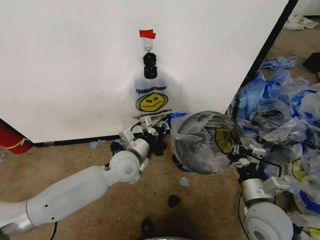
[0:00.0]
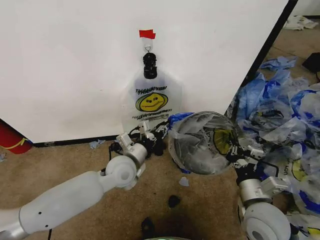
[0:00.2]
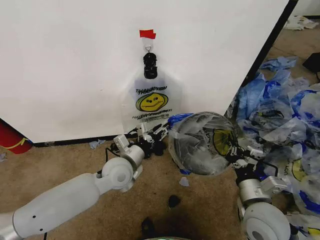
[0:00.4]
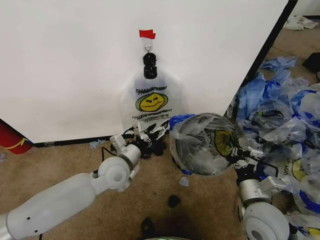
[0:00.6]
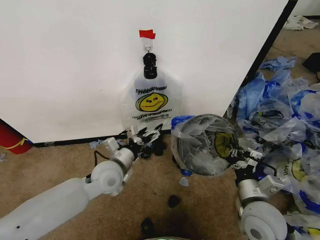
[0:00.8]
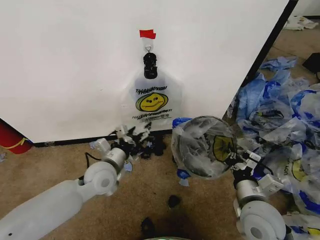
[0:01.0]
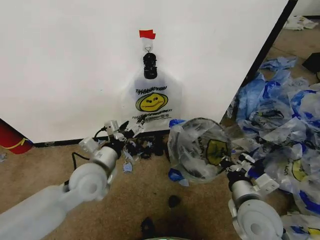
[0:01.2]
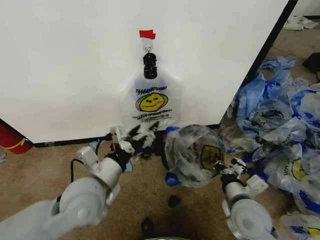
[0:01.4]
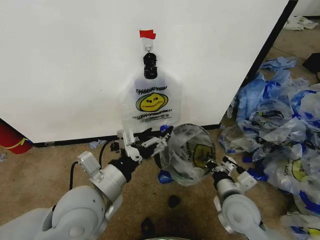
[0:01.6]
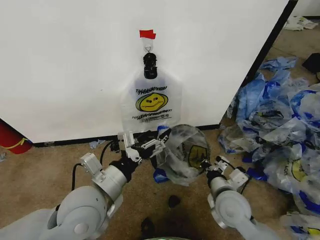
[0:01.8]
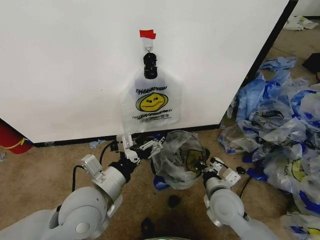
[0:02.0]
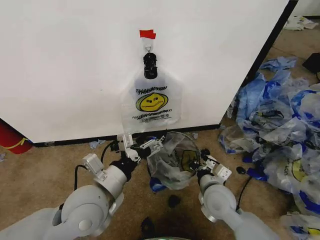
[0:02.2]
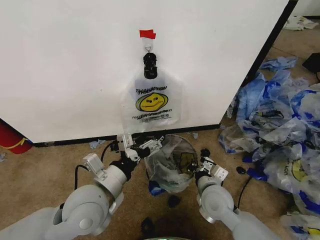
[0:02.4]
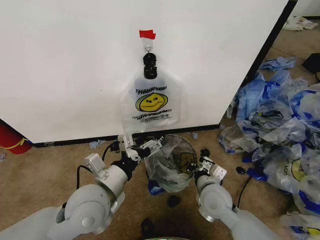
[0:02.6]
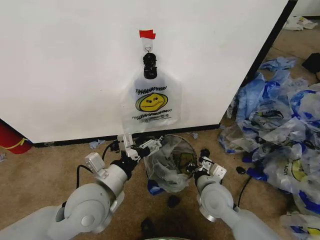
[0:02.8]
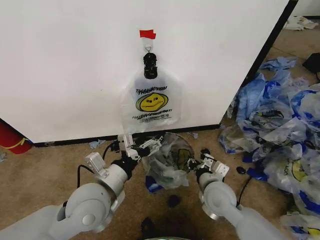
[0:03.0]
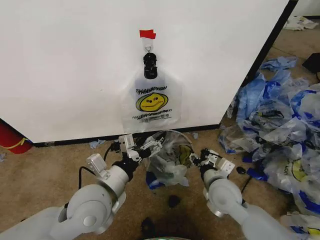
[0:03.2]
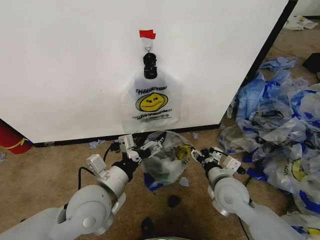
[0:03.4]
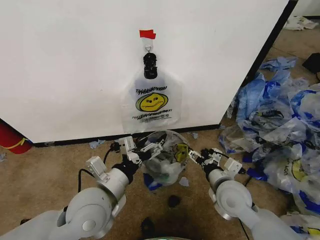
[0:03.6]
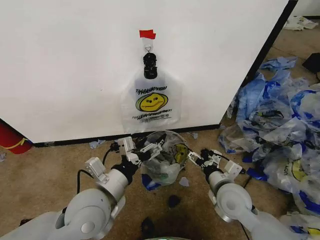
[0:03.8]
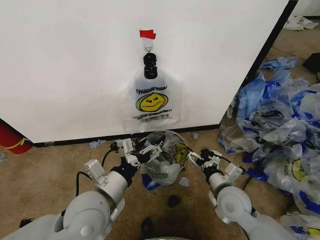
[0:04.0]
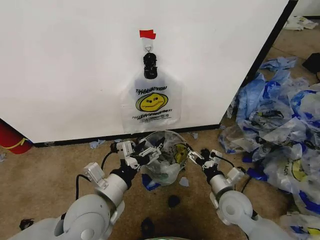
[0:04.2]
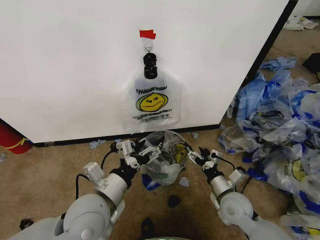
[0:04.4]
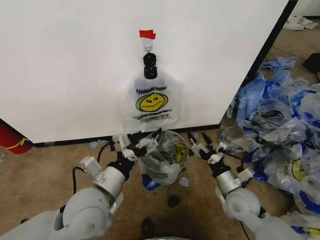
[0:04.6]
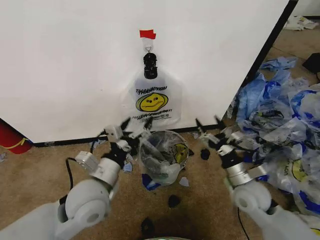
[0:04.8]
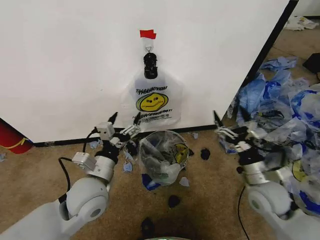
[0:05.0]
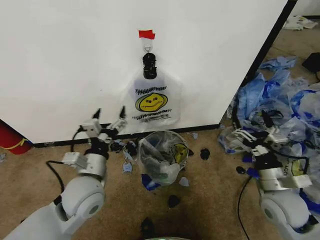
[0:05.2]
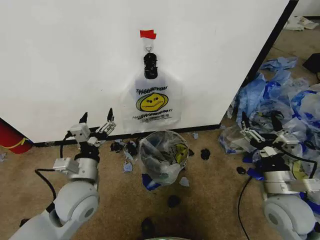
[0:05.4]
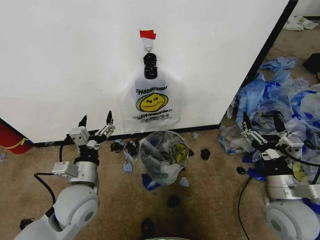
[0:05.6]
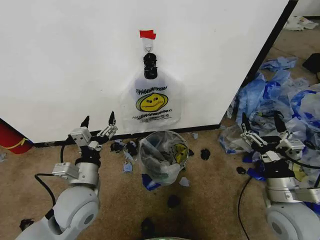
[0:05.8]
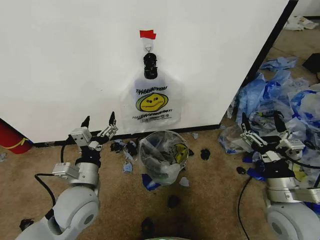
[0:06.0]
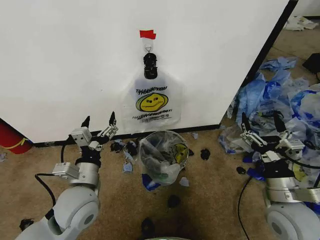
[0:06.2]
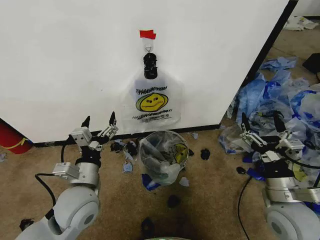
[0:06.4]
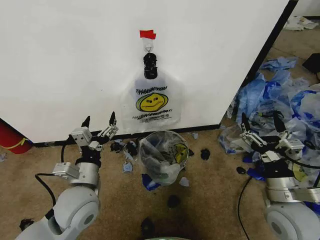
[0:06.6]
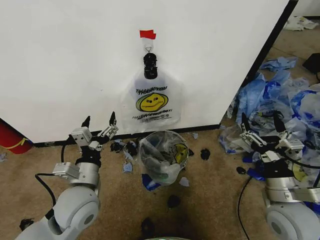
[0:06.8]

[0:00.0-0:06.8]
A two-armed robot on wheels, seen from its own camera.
Task of the whole recording: Pick up the garbage bag from the wall and place it over the trash bin.
0:00.0 to 0:01.4: The left gripper shifts about 15 cm backward, upward and to the left, and opens its fingers.
0:01.4 to 0:02.8: The right gripper shifts about 10 cm to the left and forward.
0:02.8 to 0:04.0: The right gripper travels to the right by approximately 5 cm, and opens.
0:04.0 to 0:05.4: The right gripper moves to the right and upward, about 10 cm; the left gripper changes place by roughly 5 cm.
0:05.4 to 0:06.8: There are only small adjustments of the grippers.

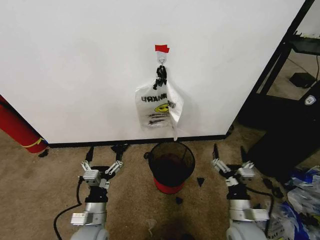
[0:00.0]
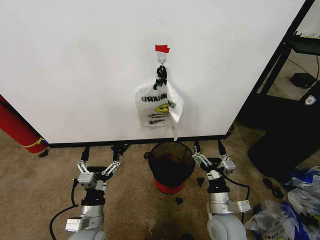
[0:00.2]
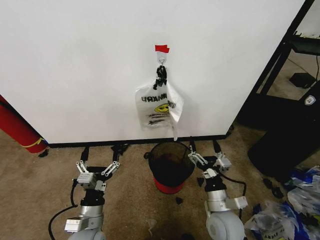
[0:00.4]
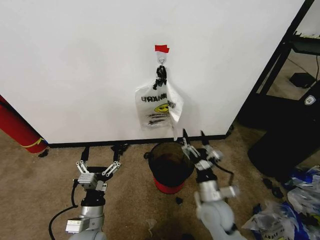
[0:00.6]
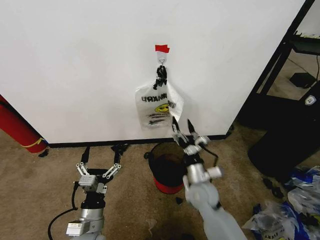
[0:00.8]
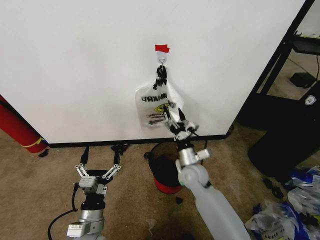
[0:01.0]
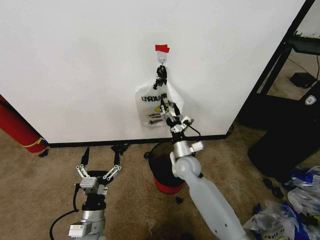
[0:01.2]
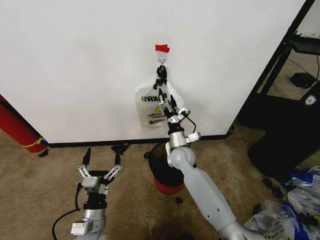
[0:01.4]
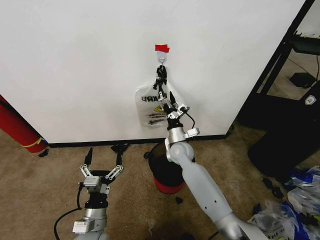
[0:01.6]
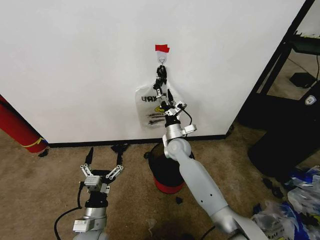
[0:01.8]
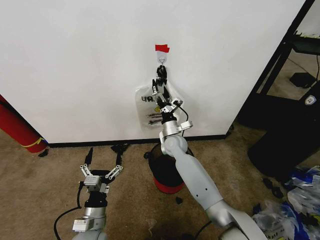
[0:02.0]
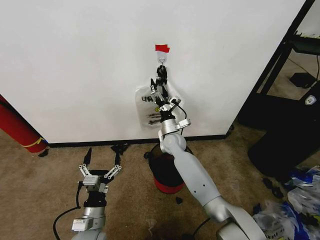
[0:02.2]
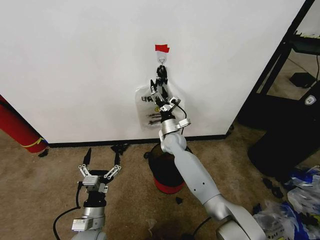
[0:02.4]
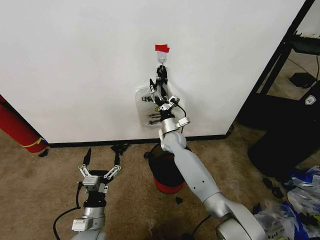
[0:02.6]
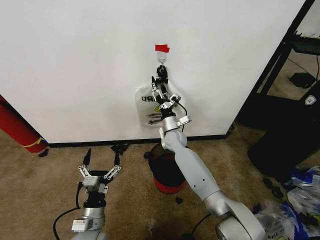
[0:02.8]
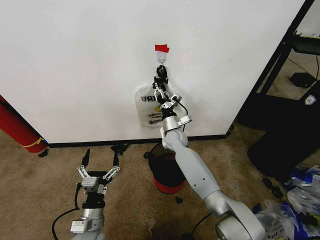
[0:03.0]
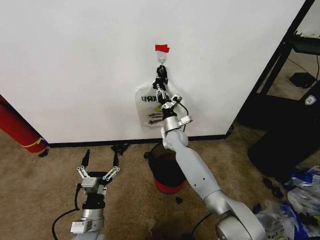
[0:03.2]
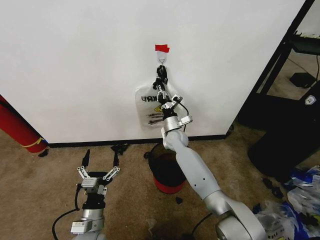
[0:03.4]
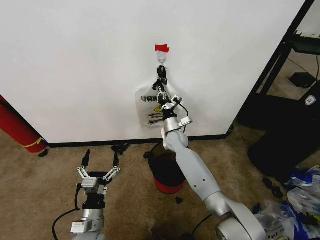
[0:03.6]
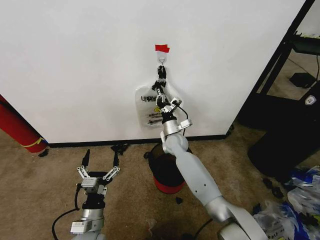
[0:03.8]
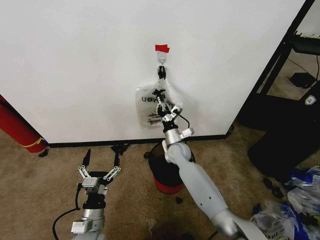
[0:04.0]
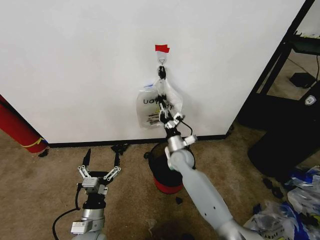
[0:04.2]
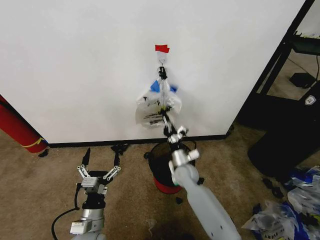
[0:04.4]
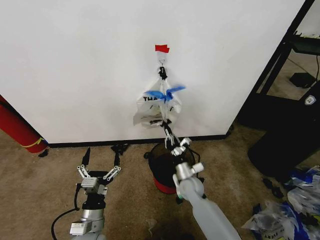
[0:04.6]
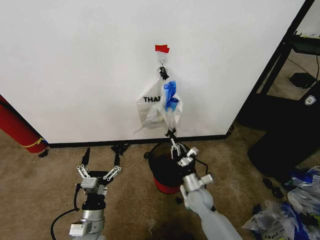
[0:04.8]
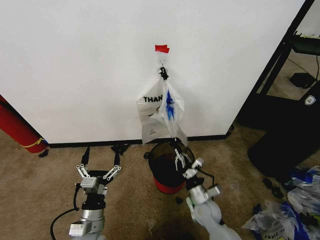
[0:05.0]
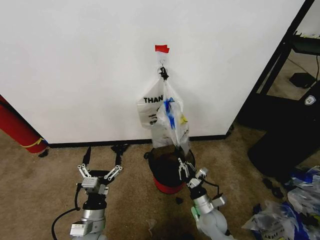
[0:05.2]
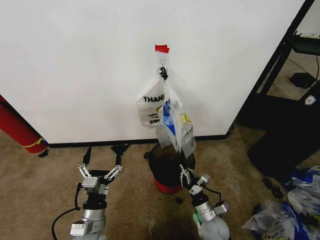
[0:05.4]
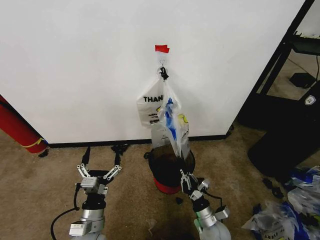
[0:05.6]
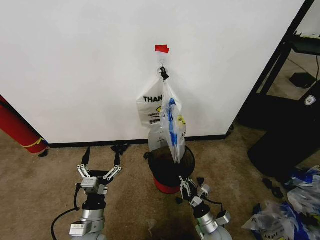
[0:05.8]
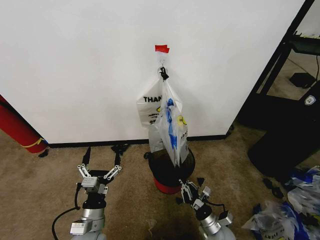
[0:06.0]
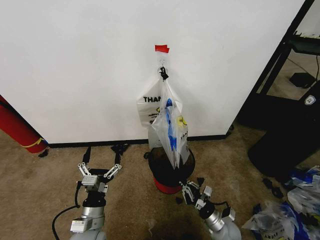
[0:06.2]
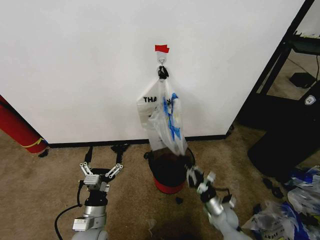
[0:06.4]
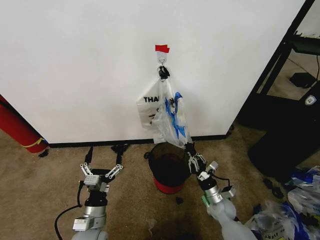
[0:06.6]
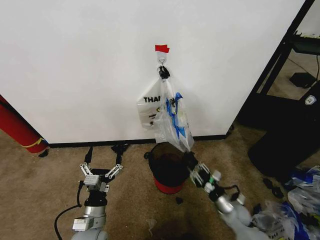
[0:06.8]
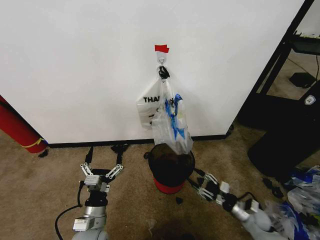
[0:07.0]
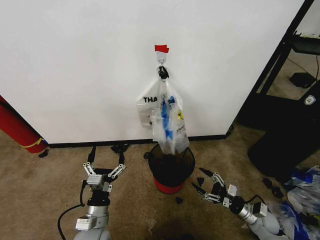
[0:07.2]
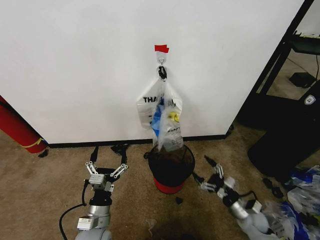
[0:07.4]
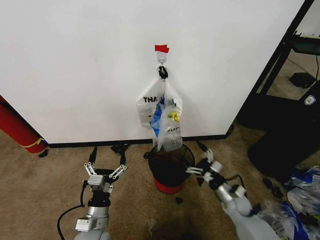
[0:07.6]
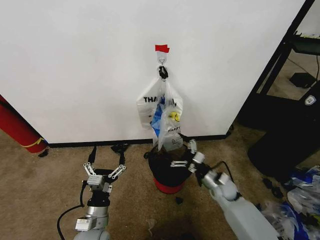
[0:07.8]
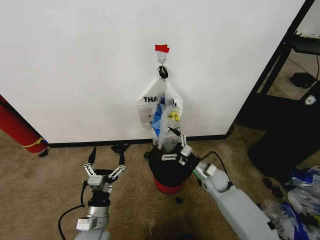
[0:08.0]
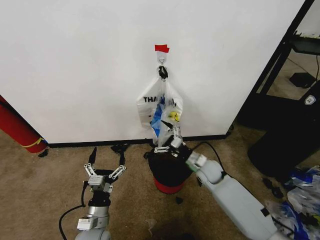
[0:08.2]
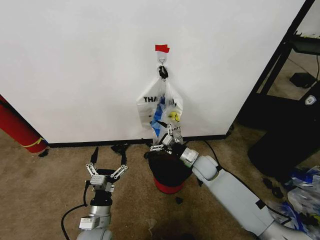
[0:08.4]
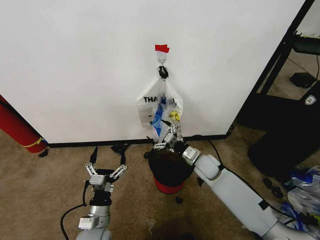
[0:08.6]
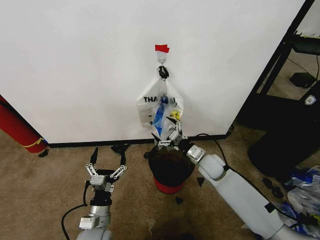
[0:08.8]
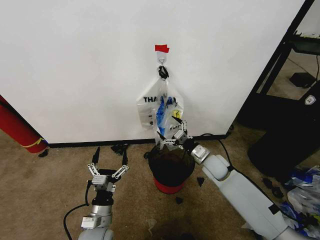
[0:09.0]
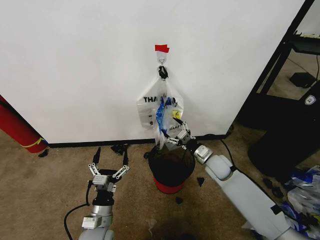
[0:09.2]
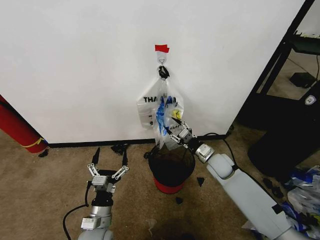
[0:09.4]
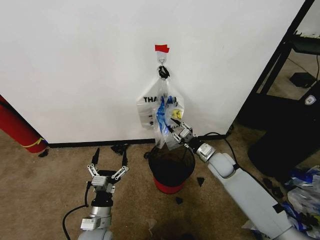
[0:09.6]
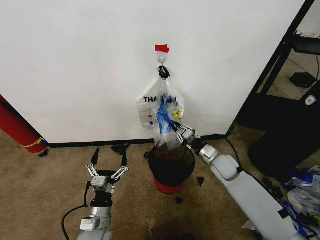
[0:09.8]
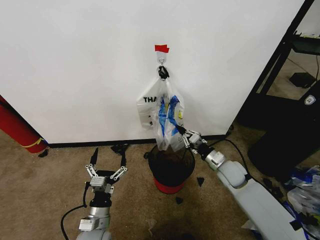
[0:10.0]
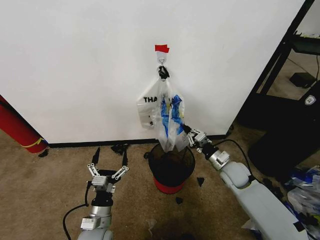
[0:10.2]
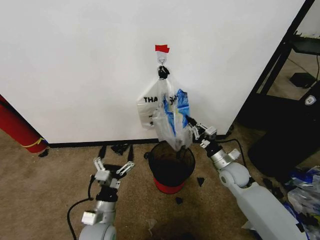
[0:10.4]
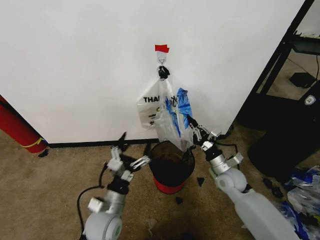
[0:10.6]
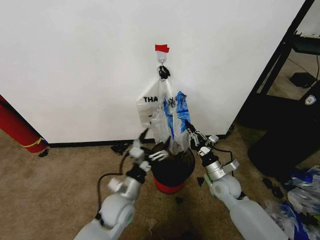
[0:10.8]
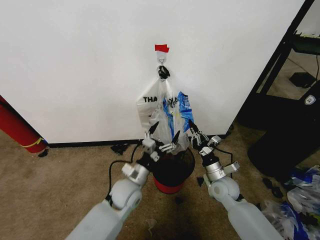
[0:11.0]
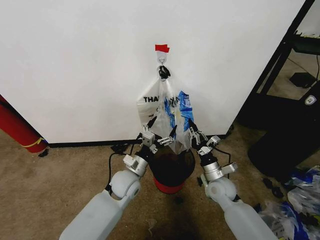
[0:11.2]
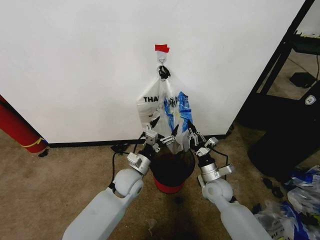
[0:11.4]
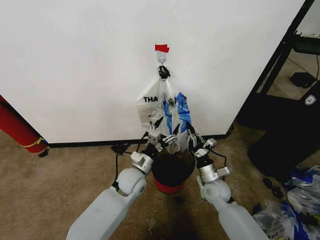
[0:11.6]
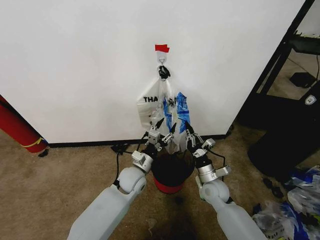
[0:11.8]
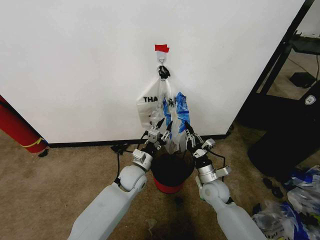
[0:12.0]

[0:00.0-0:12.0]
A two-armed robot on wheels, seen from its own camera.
Task of the whole recording: Pick up the garbage bag from the wall and place it over the trash bin.
0:01.6 to 0:03.0: The right gripper moves forward, approximately 5 cm, and closes its fingers.
0:03.0 to 0:04.4: The right gripper goes approximately 15 cm backward and downward, and closes up.
0:04.4 to 0:06.0: The right gripper is displaced backward, downward and to the right by roughly 25 cm.
0:06.0 to 0:07.6: The right gripper travels forward, to the right and upward by some 15 cm, and opens its fingers.
0:07.6 to 0:09.0: The right gripper goes some 20 cm forward, upward and to the left.
0:09.0 to 0:10.4: The right gripper shifts about 5 cm to the right, and closes up.
0:10.4 to 0:12.0: The right gripper goes some 10 cm to the left and downward, while the left gripper goes some 20 cm forward and to the right, and closes up.

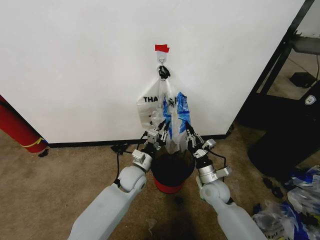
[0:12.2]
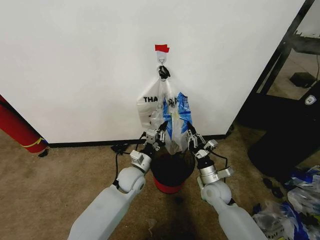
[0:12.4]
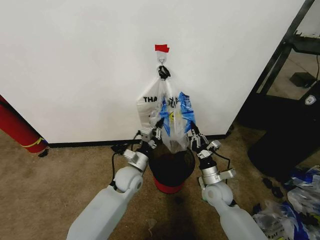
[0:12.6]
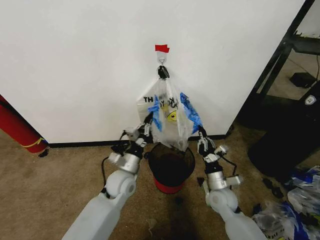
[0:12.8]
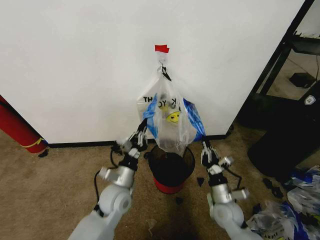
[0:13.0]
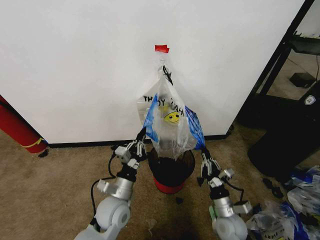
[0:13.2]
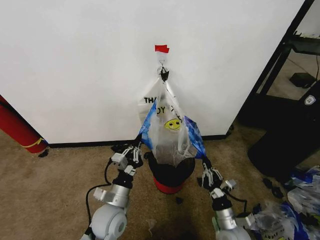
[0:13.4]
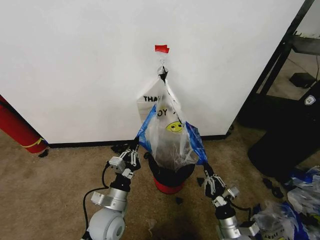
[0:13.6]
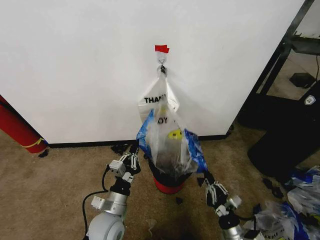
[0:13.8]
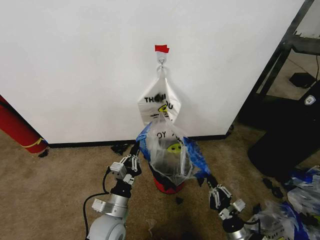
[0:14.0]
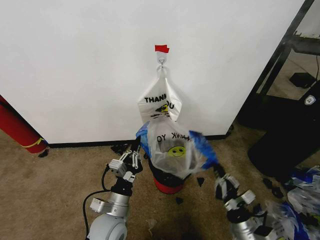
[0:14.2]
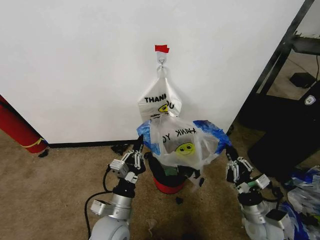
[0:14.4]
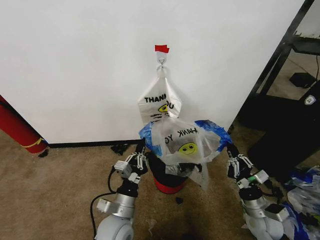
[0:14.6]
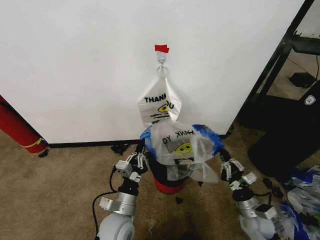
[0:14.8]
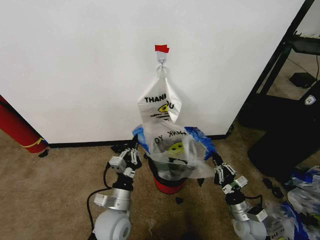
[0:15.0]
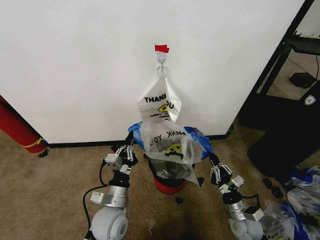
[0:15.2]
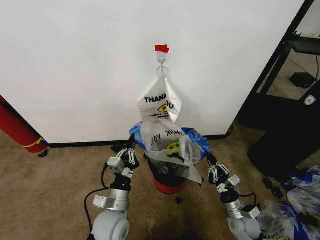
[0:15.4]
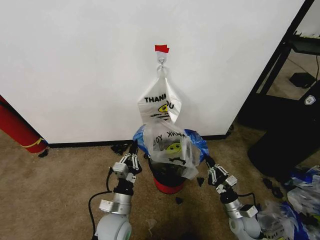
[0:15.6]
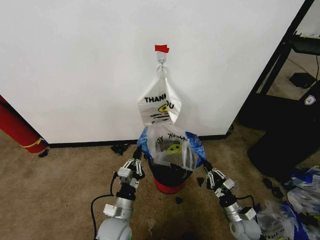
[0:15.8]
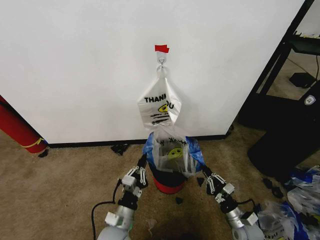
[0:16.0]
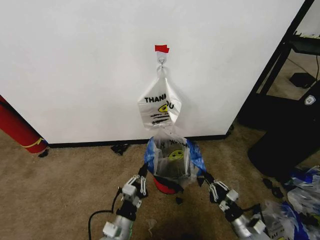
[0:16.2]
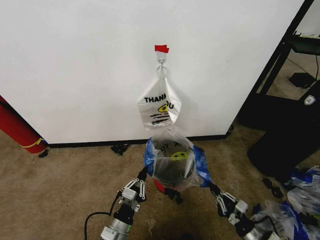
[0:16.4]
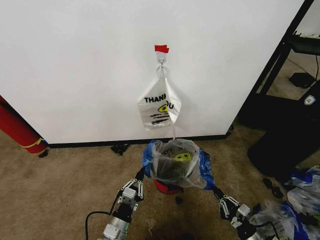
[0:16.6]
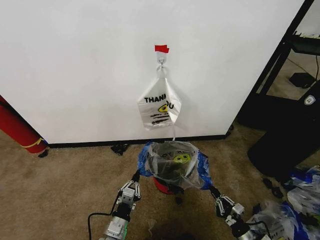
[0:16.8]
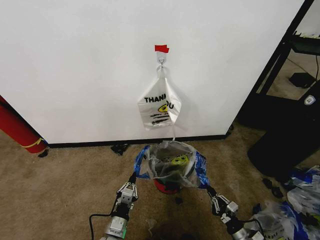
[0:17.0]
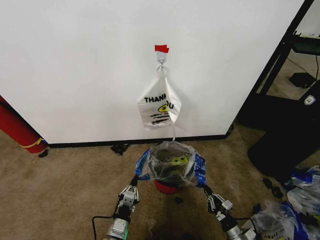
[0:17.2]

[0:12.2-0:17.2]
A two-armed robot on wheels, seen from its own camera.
Task of the whole recording: Pick up the garbage bag from the wall and place it over the trash bin.
0:12.2 to 0:13.8: The grippers both shift backward by some 15 cm.
0:13.8 to 0:15.6: The right gripper heads forward, covering roughly 10 cm.
0:15.6 to 0:17.2: The grippers both shift downward and backward by about 10 cm.
